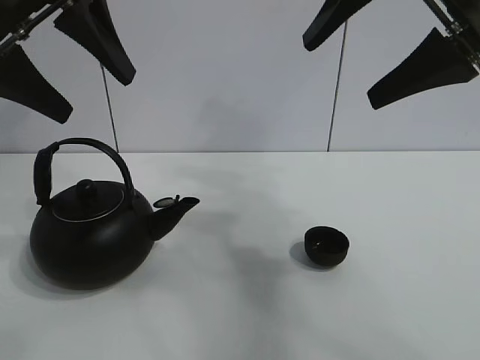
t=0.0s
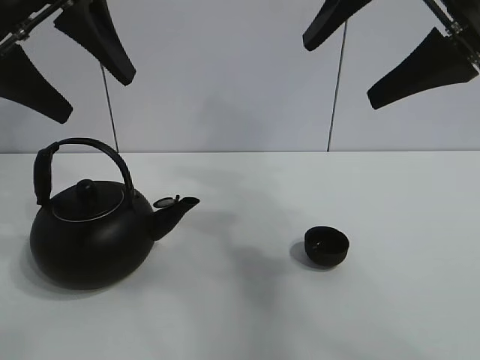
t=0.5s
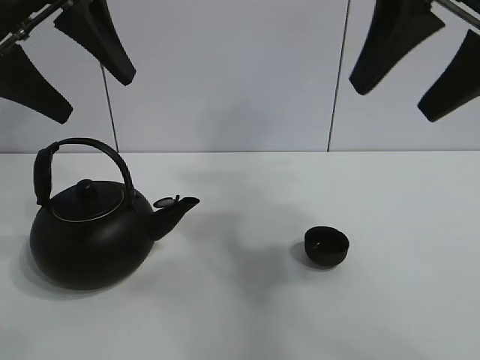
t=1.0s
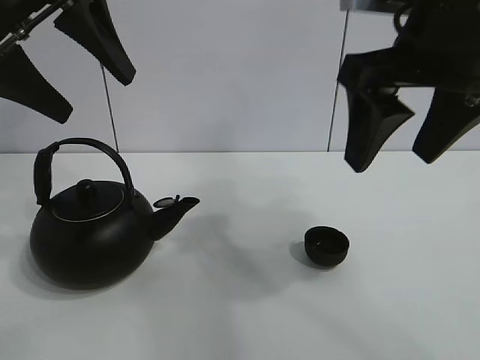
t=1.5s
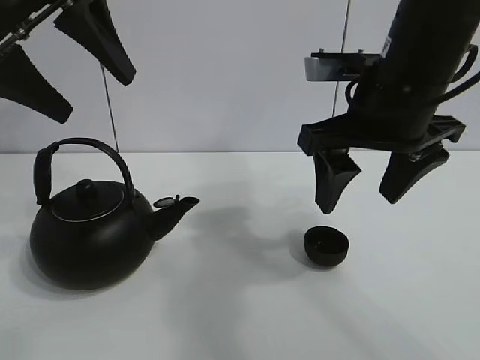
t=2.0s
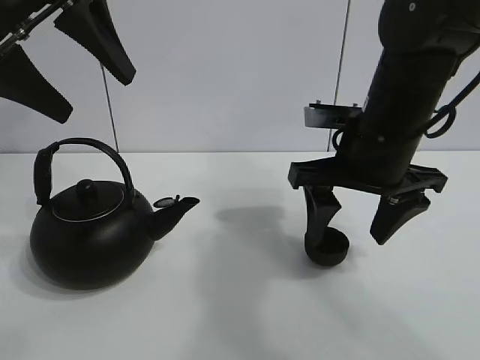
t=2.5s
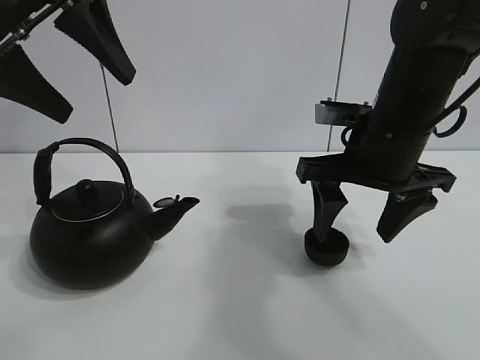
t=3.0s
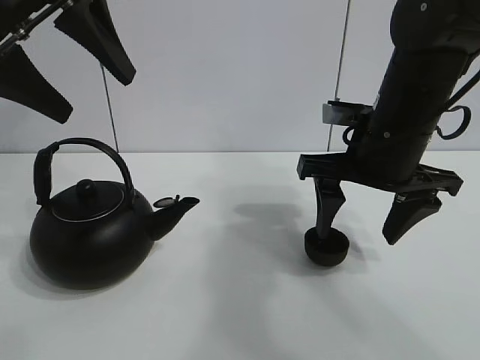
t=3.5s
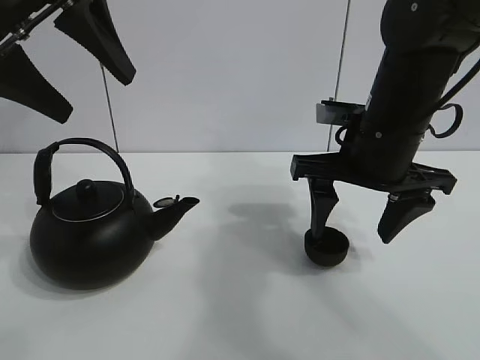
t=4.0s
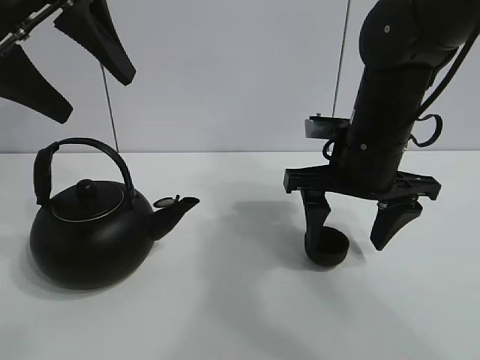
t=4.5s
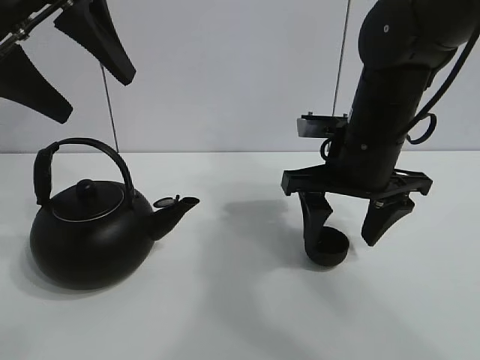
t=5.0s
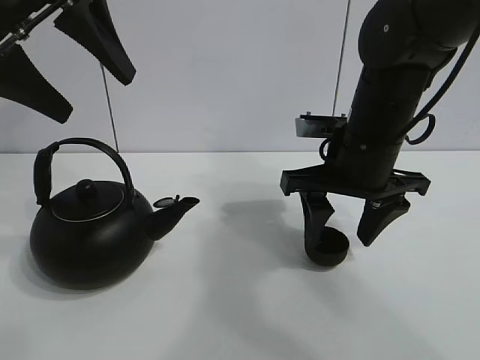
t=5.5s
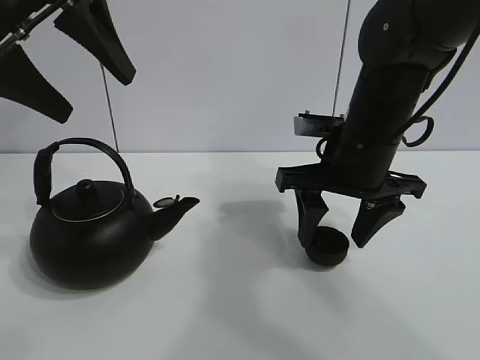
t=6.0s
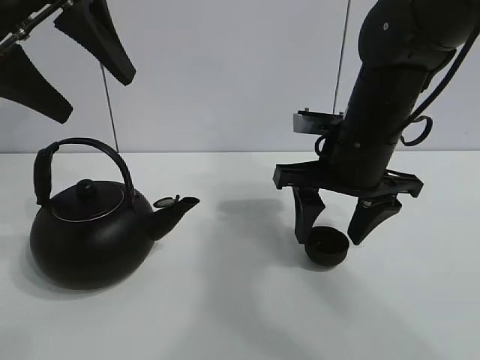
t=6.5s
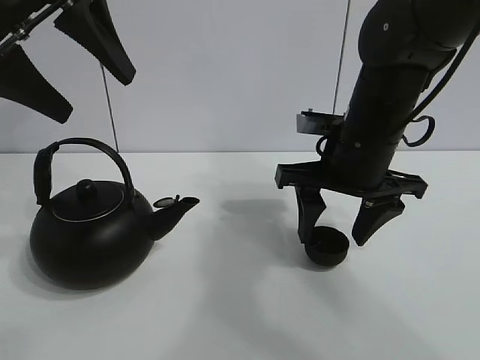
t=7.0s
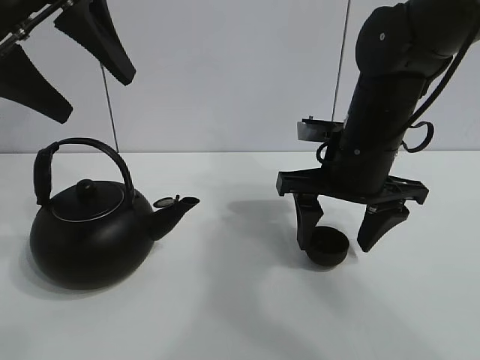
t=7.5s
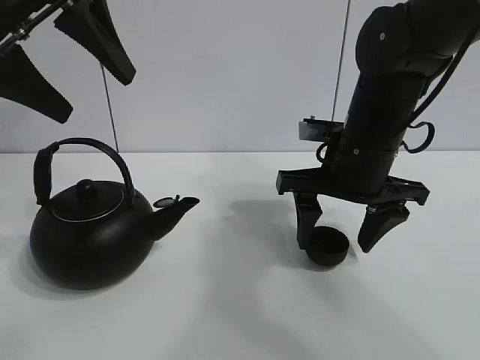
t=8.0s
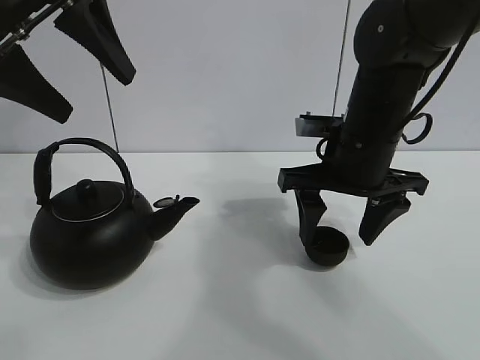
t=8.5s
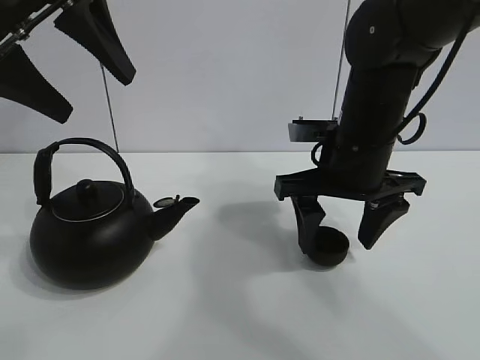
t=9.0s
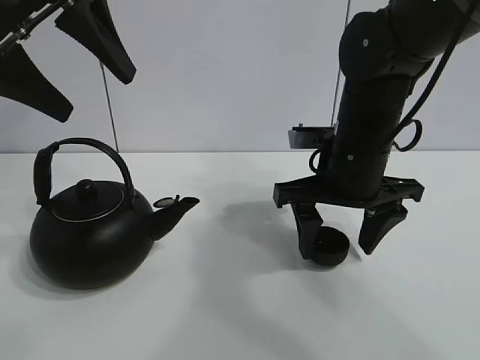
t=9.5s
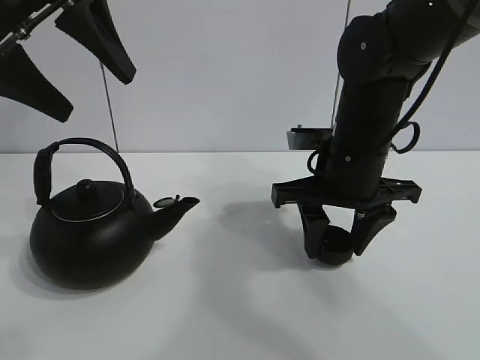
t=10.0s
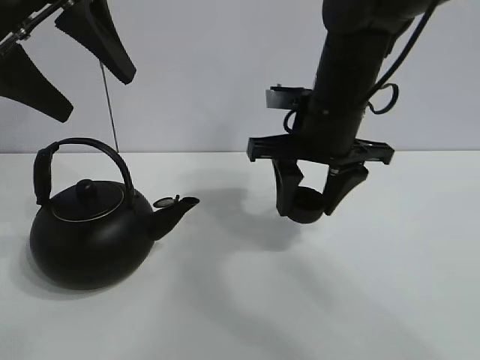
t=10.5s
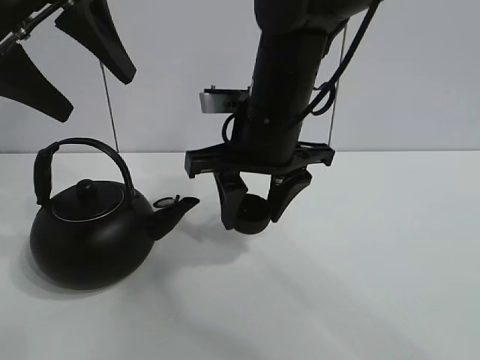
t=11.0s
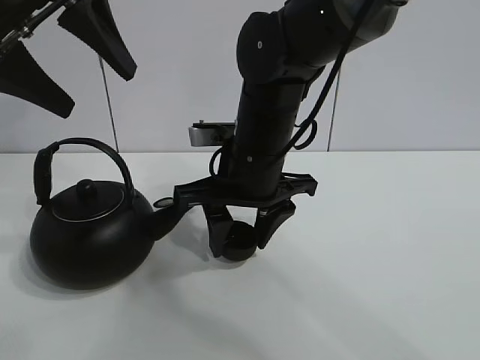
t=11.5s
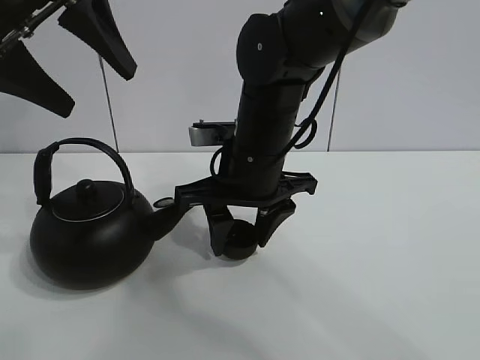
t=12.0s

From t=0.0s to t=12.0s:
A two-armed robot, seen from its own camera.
Task of the whole recording: pour tea into the teacup.
Step, from t=0.0s to t=10.0s: Pick up the teacup with the right gripper.
From t=2.0s to t=4.0s: The right gripper moves downward, about 5 cm.
From t=4.0s to t=6.0s: The right gripper closes up.
From t=6.0s to t=8.0s: The right gripper opens its fingers.
From t=8.0s to t=10.0s: The right gripper closes its fingers.
From t=10.0s to t=12.0s: The right gripper shifts about 10 cm to the left.

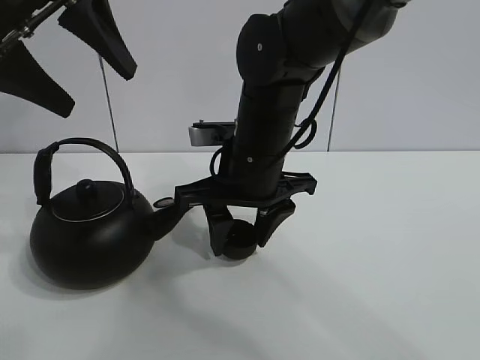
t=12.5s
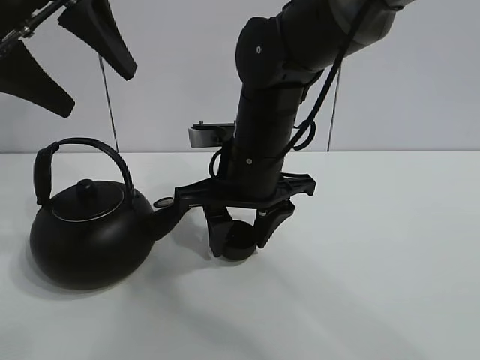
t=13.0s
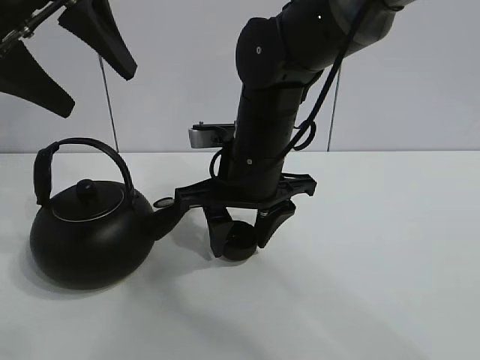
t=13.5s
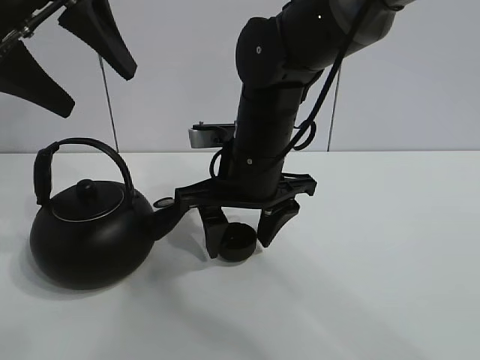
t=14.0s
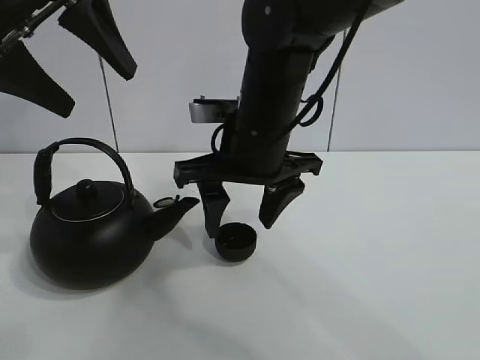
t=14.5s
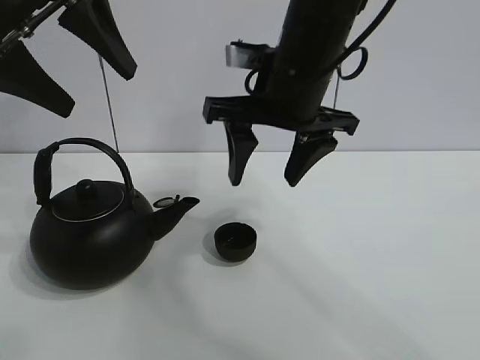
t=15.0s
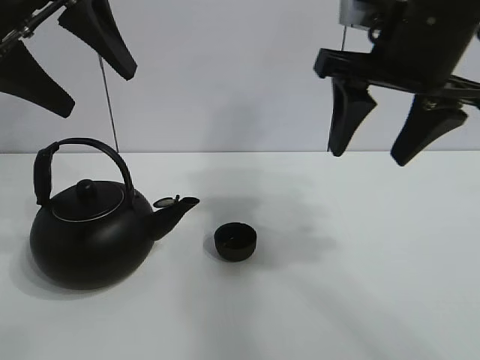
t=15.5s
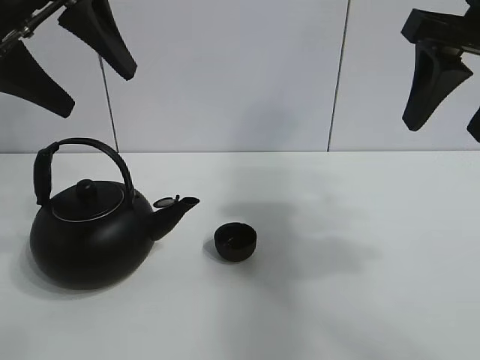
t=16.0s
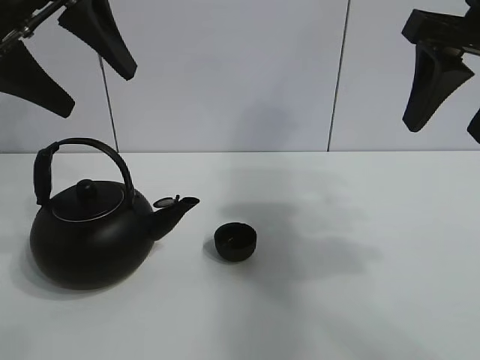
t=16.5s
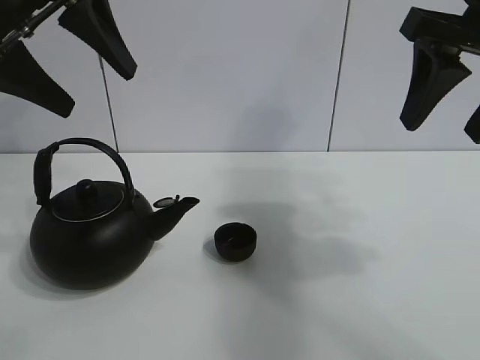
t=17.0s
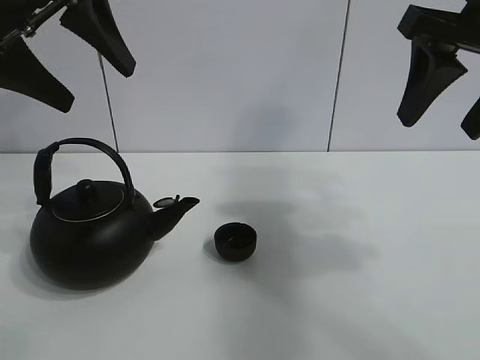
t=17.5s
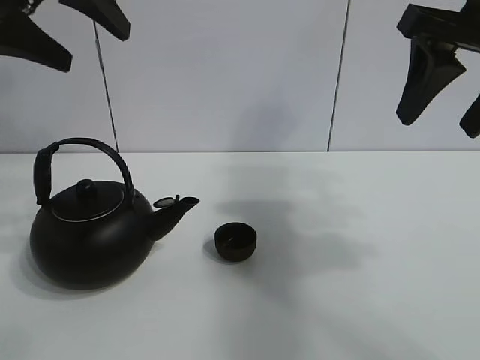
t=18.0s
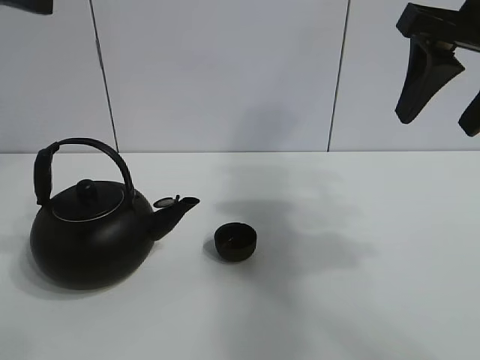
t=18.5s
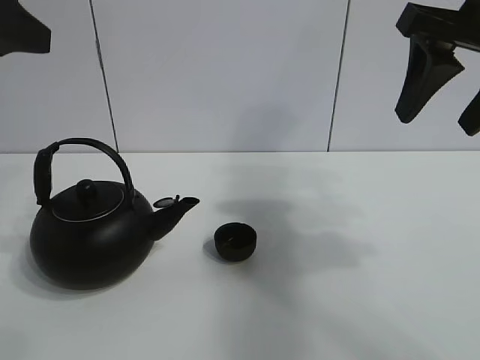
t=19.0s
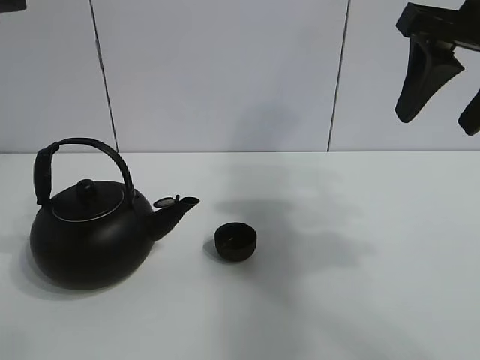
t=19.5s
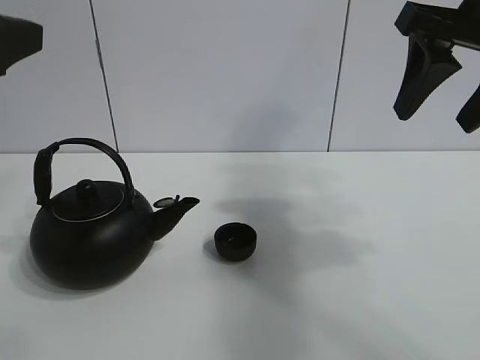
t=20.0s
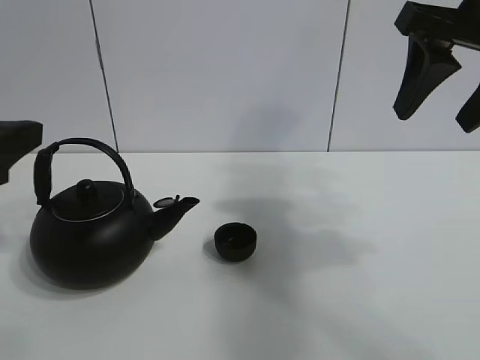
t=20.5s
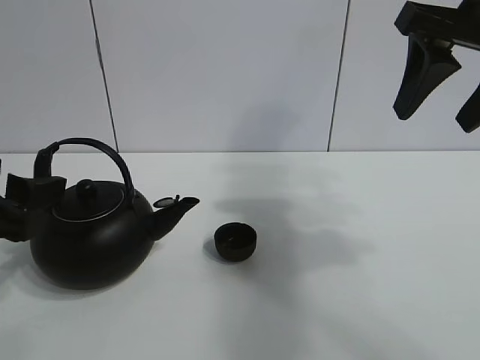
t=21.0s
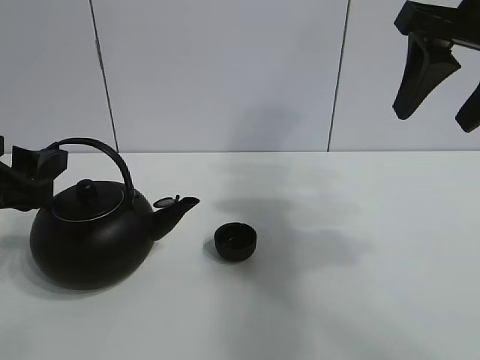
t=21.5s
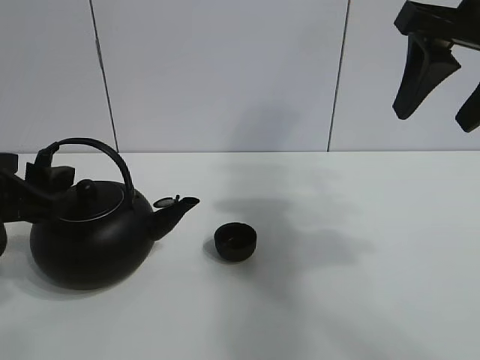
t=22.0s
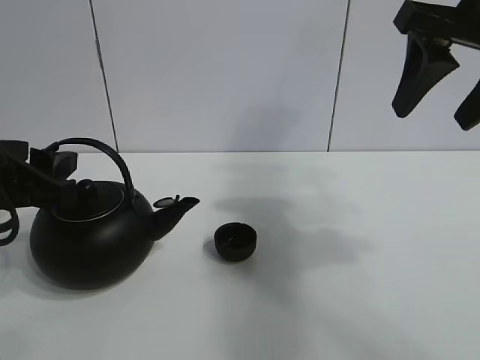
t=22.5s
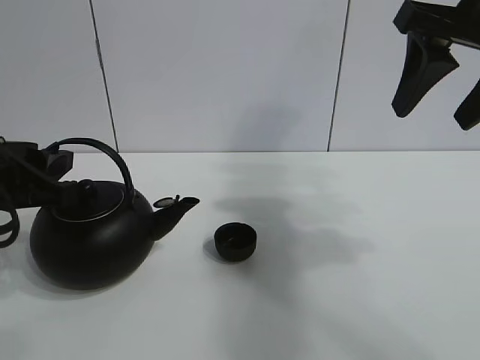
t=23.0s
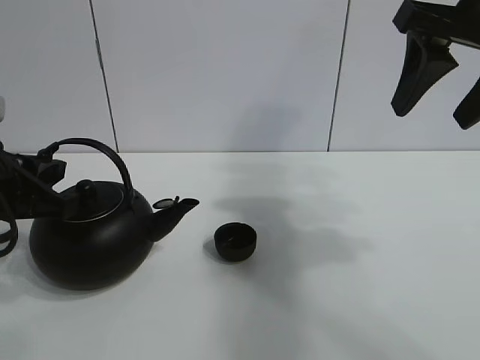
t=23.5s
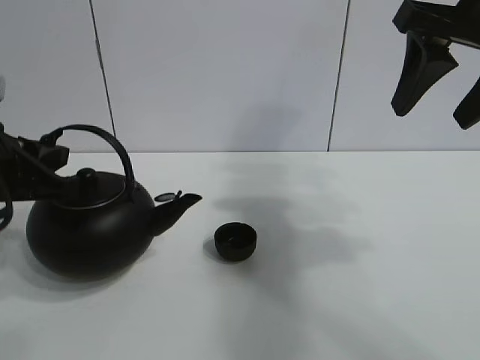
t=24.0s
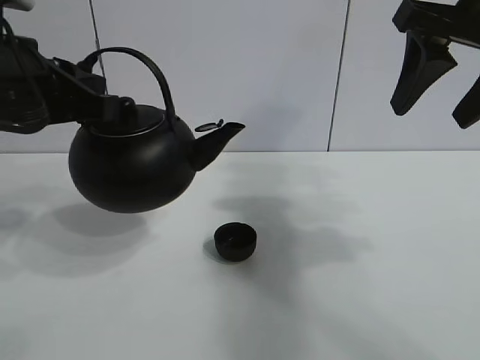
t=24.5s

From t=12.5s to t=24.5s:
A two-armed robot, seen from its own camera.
Task of the whole recording: pour tea into the teacup.
Step, from t=14.5s to t=23.5s: Pick up the teapot with the left gripper.
From t=12.5s to t=14.5s: The right gripper opens.
From t=14.5s to t=16.5s: The right gripper travels to the right and upward by approximately 25 cm.
From t=16.5s to t=18.5s: The left gripper shifts some 5 cm backward.
From t=18.5s to t=20.5s: The left gripper shifts about 15 cm downward and backward.
From t=20.5s to t=22.5s: The left gripper is displaced downward and forward by roughly 10 cm.
From t=22.5s to t=24.5s: The left gripper moves upward, some 10 cm, and closes its fingers.

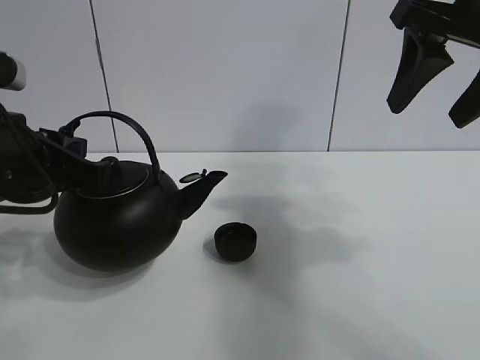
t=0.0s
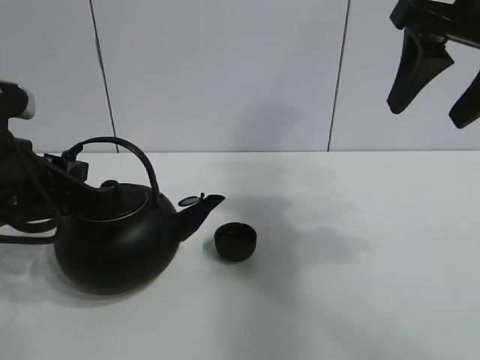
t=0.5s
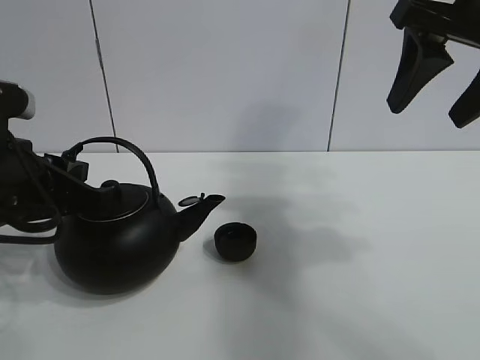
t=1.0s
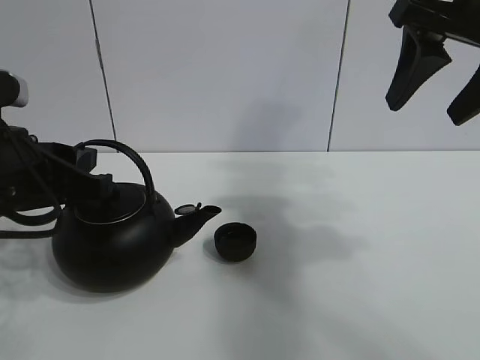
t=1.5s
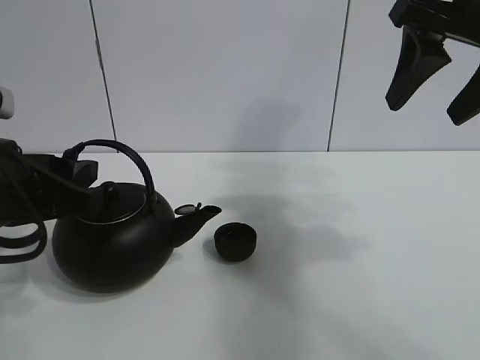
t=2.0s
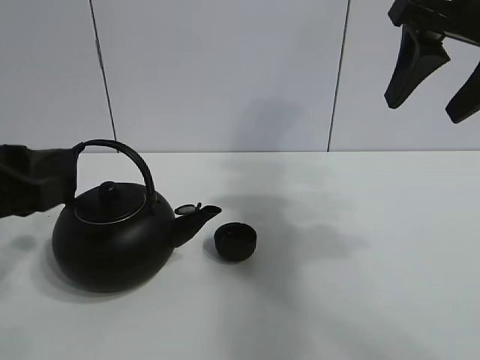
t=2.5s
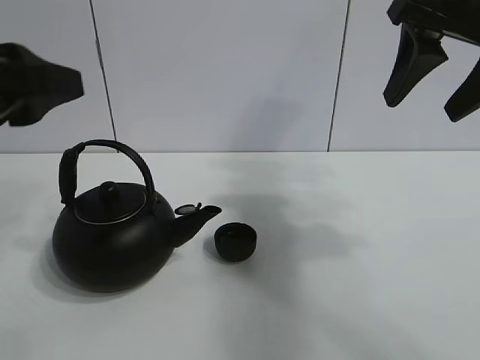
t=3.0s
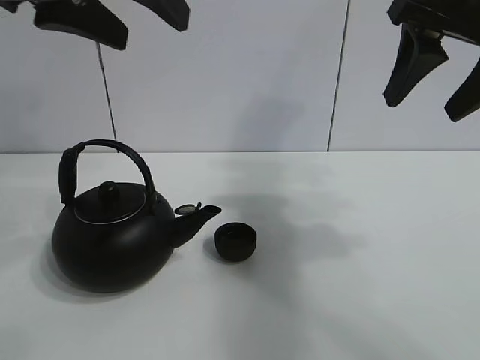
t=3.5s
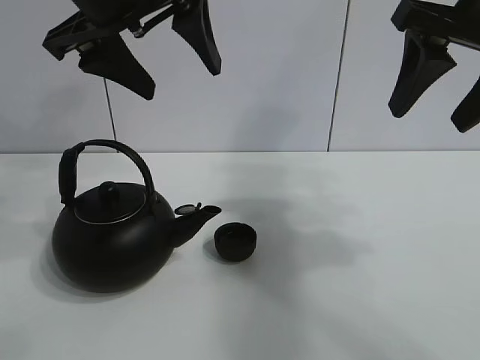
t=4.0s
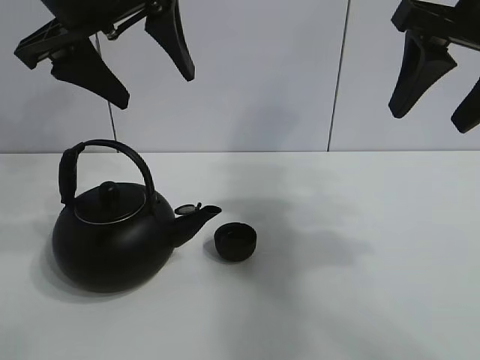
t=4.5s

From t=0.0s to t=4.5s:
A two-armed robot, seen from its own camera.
Task of the whole recording: pour tea into the teacup.
From t=0.0s to t=2.0s: The left gripper opens its fingers.
From t=2.0s to t=4.5s: The left gripper goes roughly 20 cm upward, forward and to the right.
